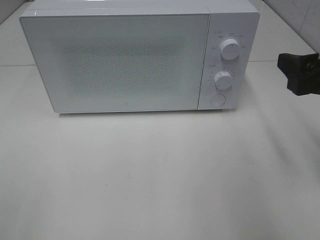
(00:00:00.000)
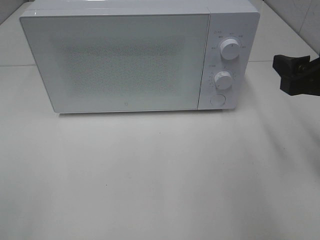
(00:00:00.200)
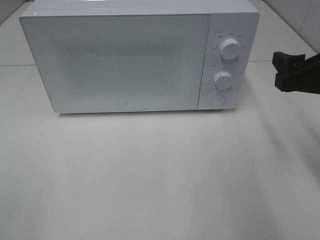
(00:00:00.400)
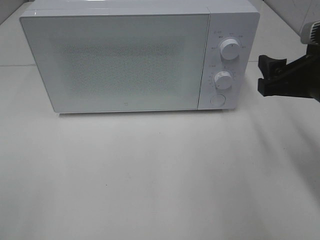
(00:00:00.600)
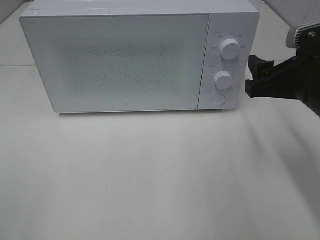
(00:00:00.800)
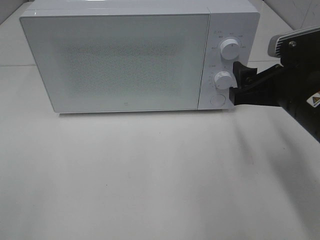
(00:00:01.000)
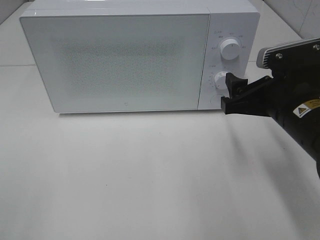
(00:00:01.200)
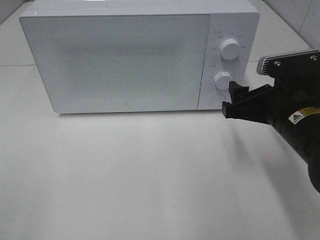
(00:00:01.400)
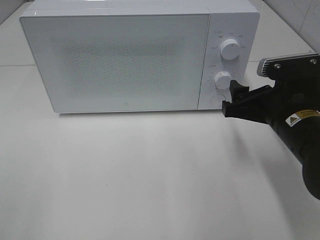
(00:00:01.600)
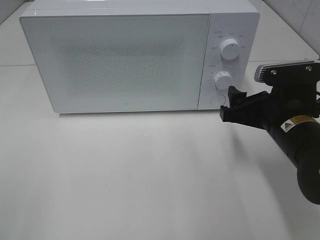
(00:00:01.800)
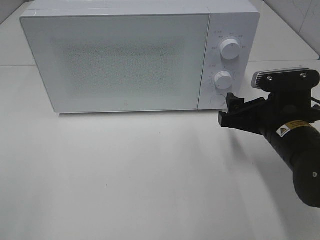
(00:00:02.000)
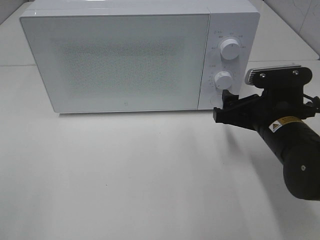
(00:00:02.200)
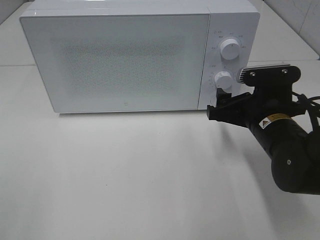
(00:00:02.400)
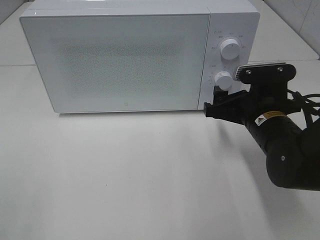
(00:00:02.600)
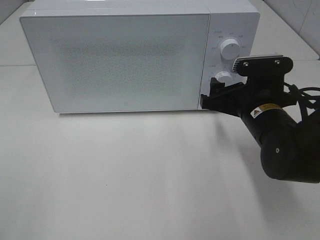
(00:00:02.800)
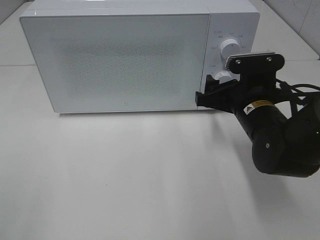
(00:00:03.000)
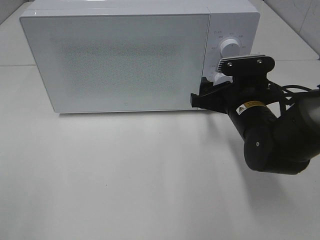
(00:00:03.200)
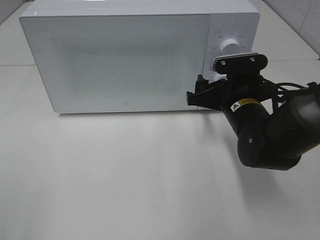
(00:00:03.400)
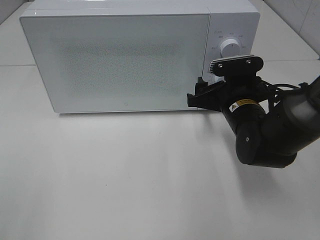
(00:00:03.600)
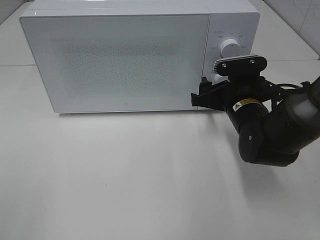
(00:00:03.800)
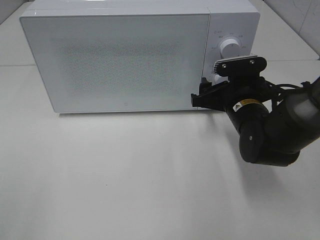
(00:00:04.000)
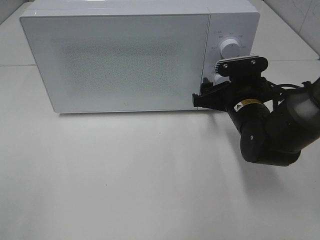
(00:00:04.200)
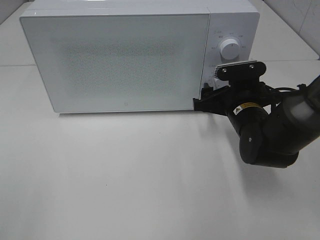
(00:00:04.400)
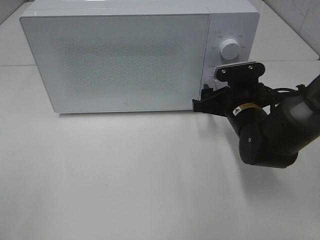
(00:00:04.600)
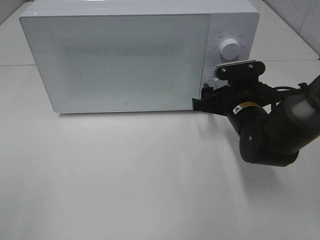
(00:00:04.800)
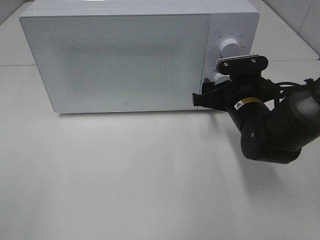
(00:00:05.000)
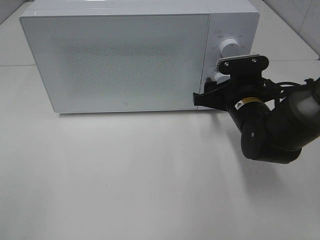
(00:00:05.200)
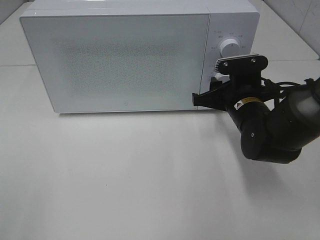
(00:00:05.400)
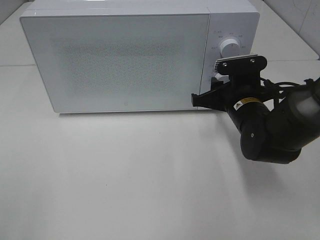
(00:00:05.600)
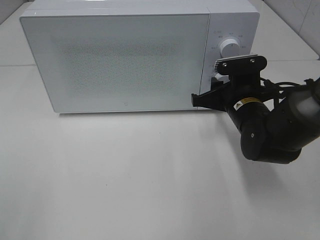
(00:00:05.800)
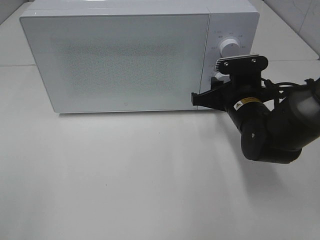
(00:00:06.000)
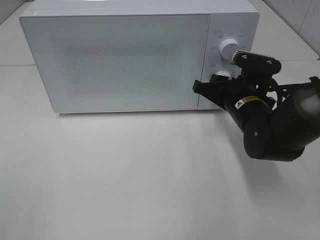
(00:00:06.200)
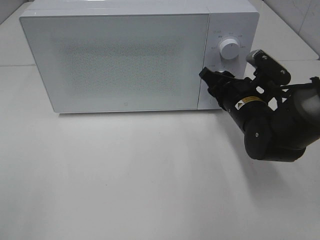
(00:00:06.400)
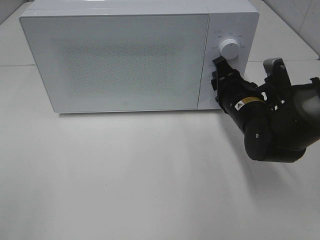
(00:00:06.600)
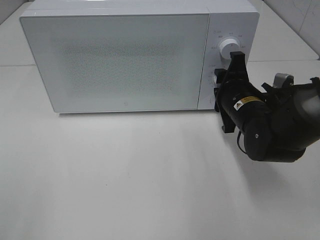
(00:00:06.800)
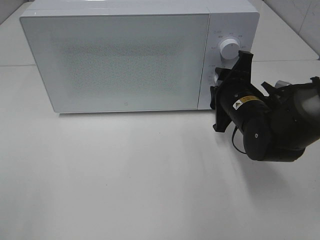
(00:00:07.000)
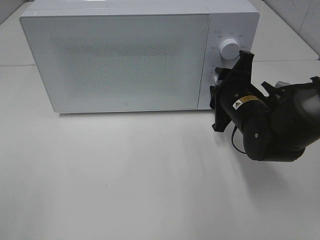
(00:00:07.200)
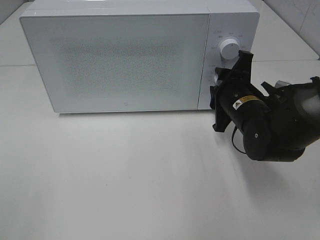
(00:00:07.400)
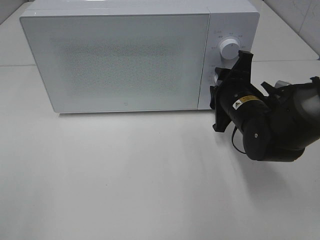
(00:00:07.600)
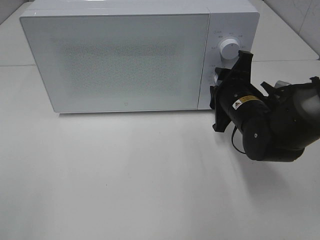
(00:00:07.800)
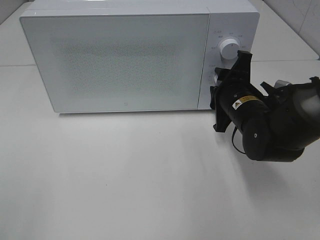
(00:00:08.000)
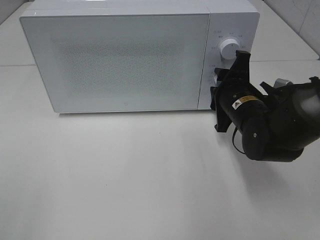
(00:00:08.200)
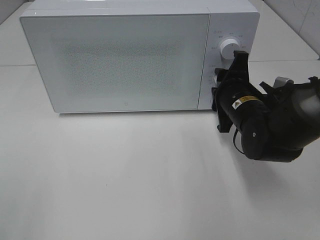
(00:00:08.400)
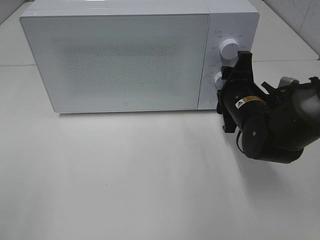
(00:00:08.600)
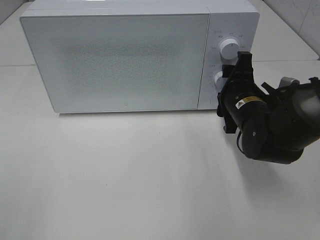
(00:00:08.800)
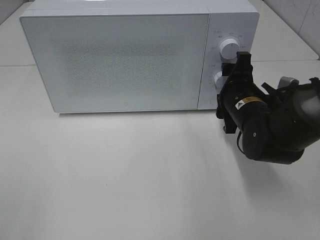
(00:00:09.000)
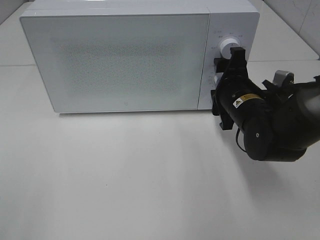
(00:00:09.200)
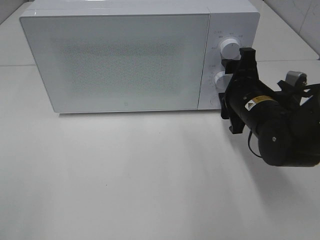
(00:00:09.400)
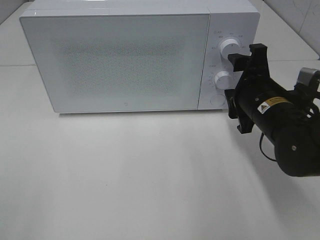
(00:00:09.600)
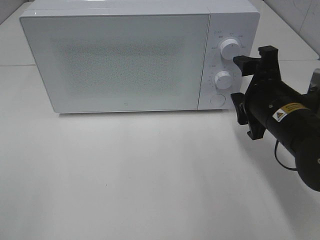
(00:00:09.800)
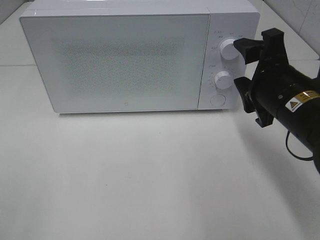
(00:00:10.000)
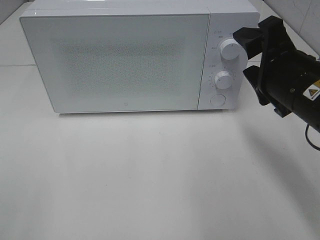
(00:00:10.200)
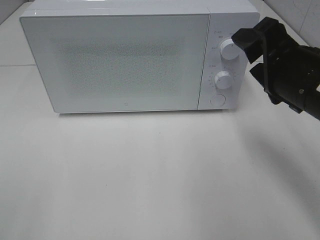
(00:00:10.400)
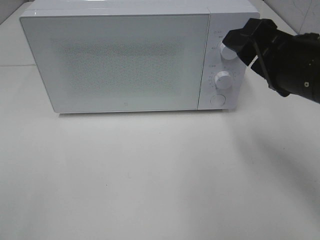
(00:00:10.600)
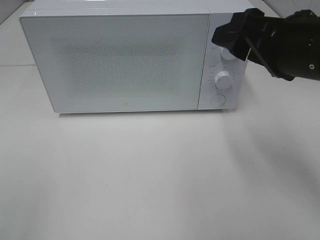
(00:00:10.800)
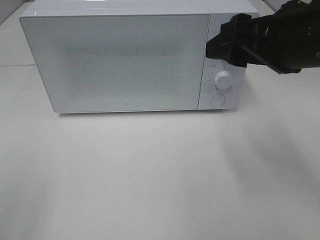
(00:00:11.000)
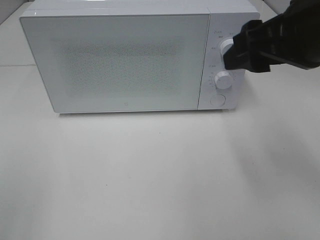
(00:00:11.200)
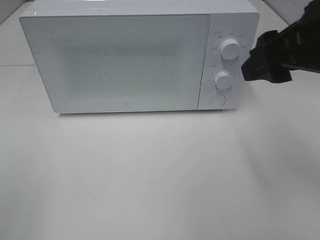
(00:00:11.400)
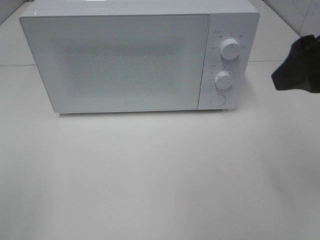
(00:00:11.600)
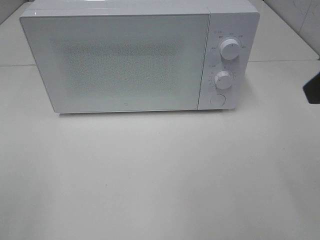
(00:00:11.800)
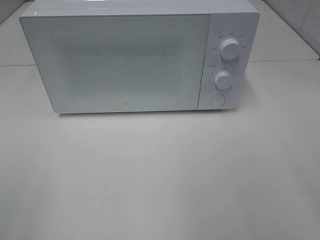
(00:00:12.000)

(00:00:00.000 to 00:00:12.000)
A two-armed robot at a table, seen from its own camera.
Task of the whole recording: Heat the burger.
Step, 00:00:00.000 - 00:00:08.600: Right hand: twist timer button.
00:00:00.000 - 00:00:01.600: The right gripper travels downward and to the left by about 10 cm.
00:00:01.600 - 00:00:03.000: The right gripper heads forward, covering roughly 5 cm.
00:00:03.000 - 00:00:04.400: The grippers stay close to where they were, moving slightly.
00:00:04.400 - 00:00:06.000: The right gripper closes up.
00:00:07.600 - 00:00:09.000: The grippers make only small movements.
00:00:09.000 - 00:00:10.400: The right gripper travels upward and backward by some 15 cm.
00:00:10.400 - 00:00:12.000: The right gripper travels upward, backward and to the right by roughly 20 cm.

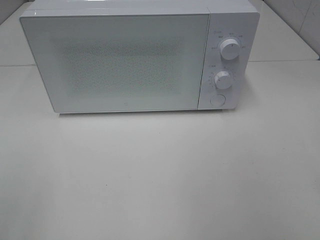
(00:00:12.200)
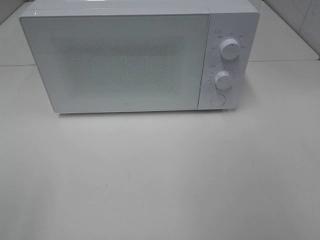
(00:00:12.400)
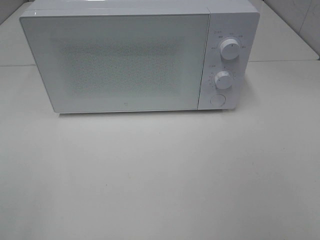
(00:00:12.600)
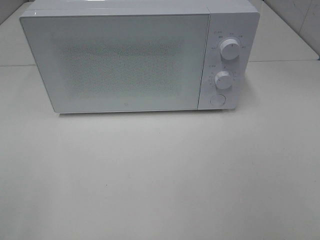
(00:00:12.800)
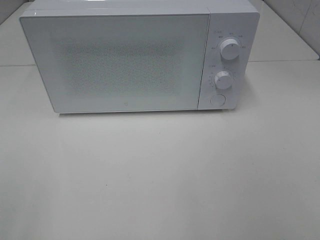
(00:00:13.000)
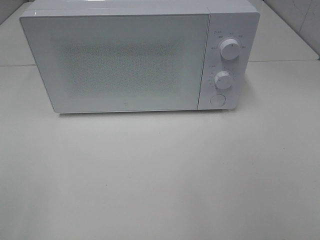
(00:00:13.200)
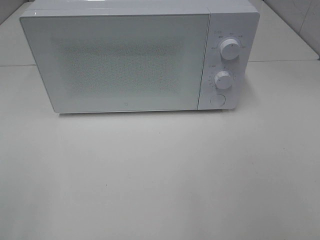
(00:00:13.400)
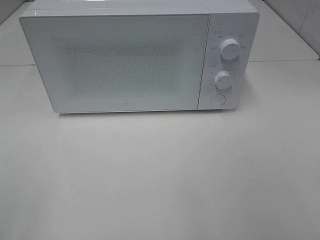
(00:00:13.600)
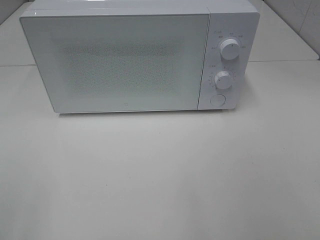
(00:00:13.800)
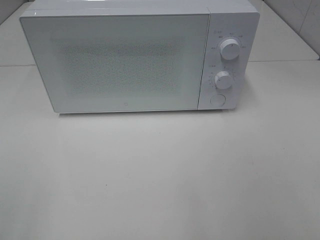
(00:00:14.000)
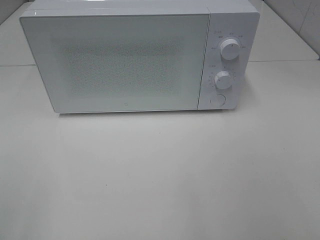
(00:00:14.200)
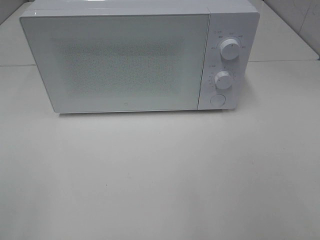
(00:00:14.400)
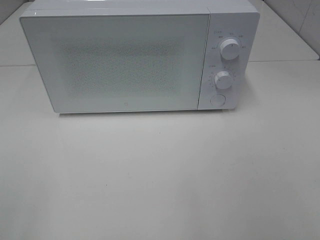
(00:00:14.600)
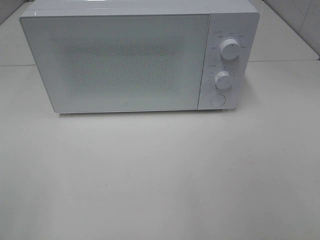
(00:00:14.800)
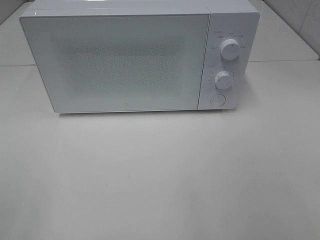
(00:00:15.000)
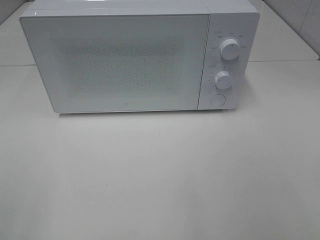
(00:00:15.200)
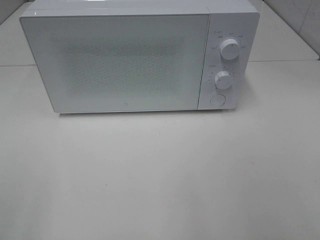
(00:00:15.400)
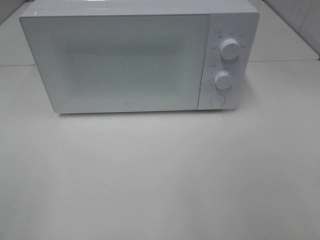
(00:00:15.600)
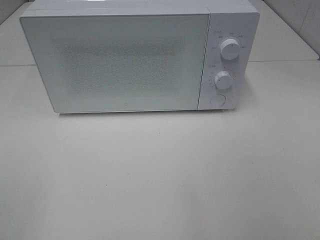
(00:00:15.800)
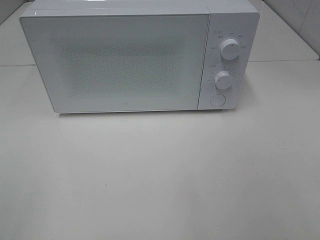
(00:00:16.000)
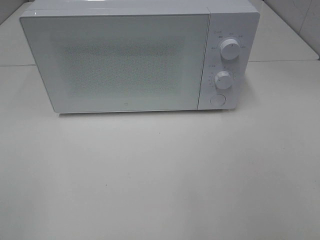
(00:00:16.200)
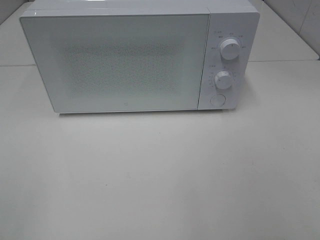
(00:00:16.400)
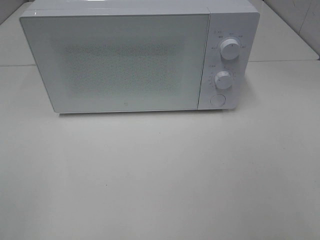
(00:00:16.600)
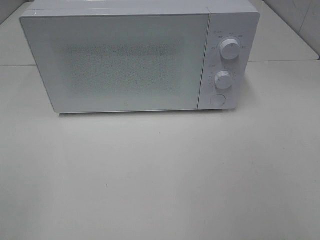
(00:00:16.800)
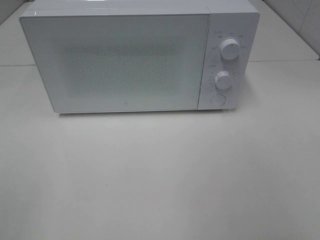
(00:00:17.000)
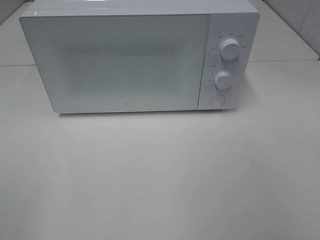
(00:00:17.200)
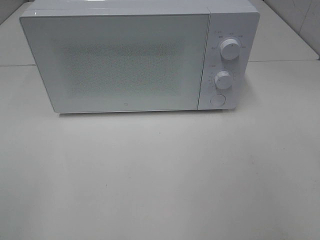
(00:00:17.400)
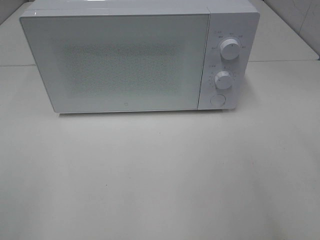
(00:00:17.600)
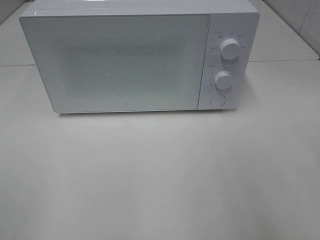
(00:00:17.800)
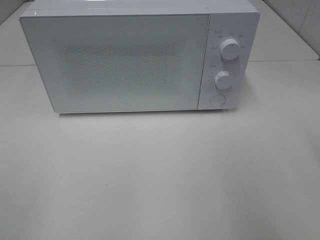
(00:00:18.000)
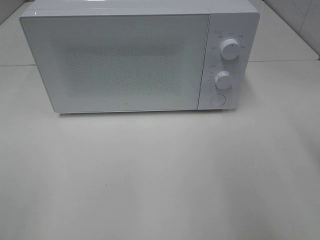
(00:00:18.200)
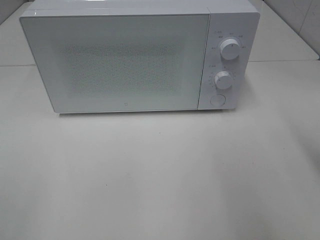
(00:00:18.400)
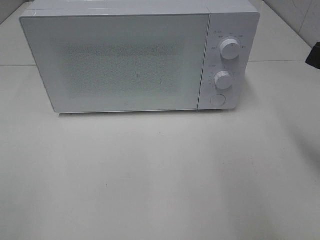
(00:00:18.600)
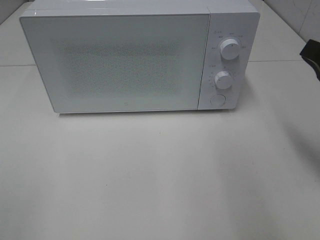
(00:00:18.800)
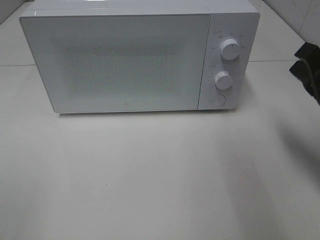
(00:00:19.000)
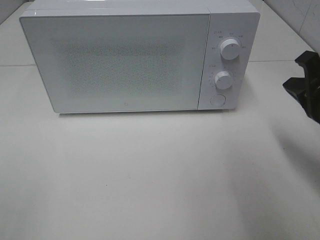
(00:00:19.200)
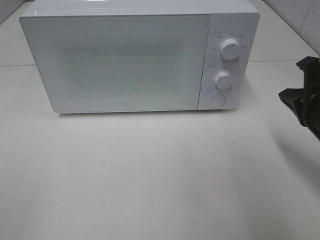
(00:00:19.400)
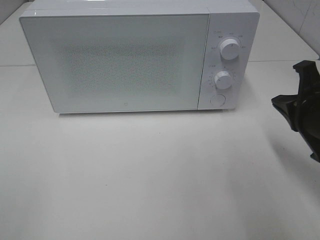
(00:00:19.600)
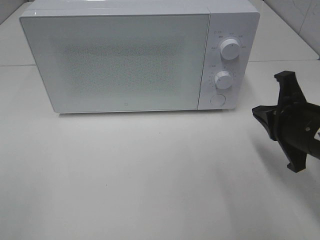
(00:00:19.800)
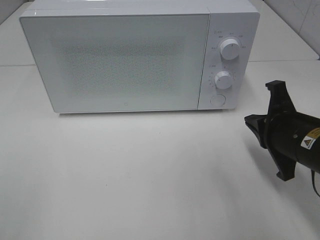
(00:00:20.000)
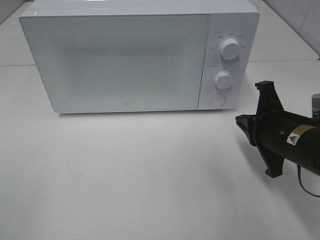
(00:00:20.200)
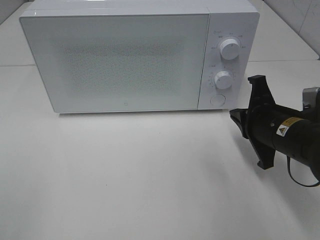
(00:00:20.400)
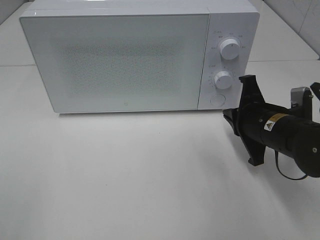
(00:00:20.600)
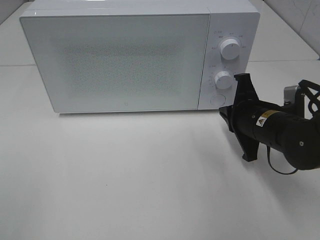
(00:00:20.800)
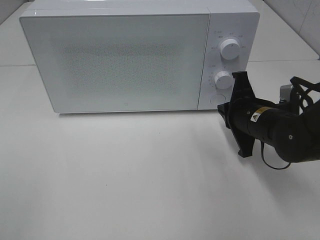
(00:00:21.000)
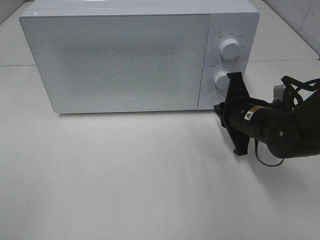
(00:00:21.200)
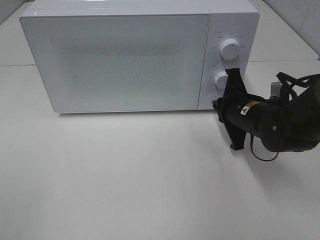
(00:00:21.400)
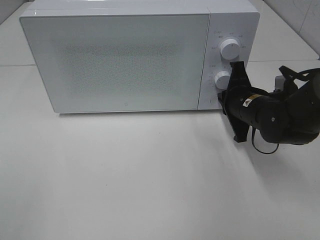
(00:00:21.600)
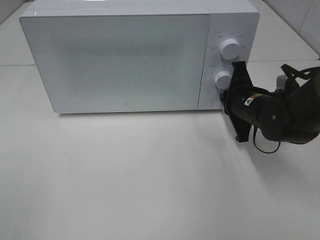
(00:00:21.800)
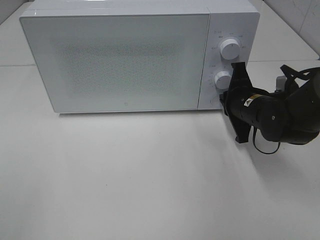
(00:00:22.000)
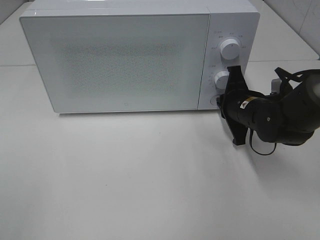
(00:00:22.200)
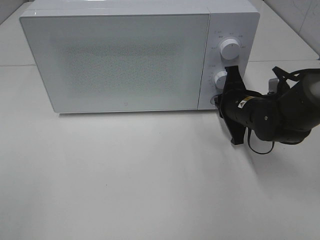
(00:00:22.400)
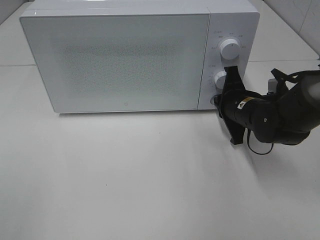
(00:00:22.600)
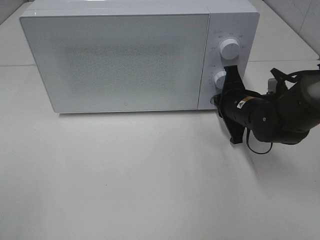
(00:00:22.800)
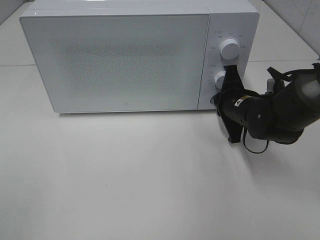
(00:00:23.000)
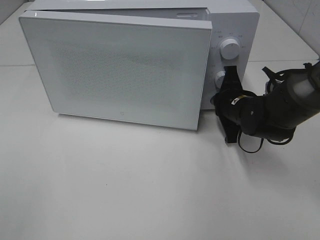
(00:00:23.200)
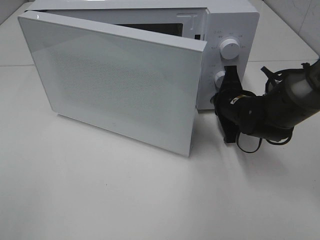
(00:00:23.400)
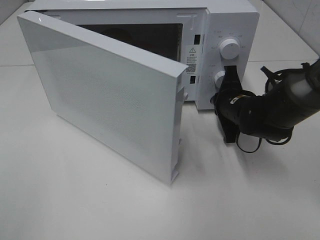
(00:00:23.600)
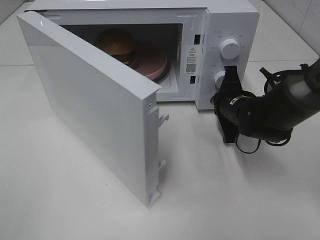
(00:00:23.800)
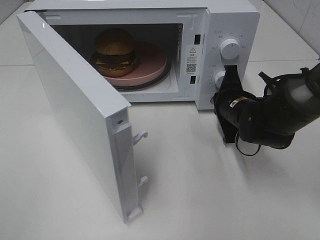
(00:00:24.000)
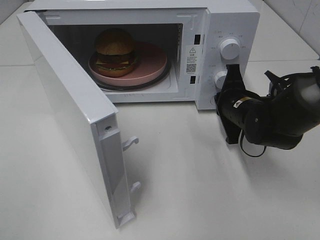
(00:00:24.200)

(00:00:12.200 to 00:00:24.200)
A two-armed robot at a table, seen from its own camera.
Task of the whole recording: Heat the burger.
Step, 00:00:12.200 - 00:00:24.200: Right hand: press the switch.
00:00:13.800 - 00:00:15.200: The two grippers keep their place.
00:00:18.200 - 00:00:19.800: The right gripper heads downward and forward, covering some 15 cm.
00:00:19.800 - 00:00:21.200: The right gripper goes about 10 cm forward, downward and to the left.
00:00:21.200 - 00:00:22.600: The grippers stay close to where they were, moving slightly.
